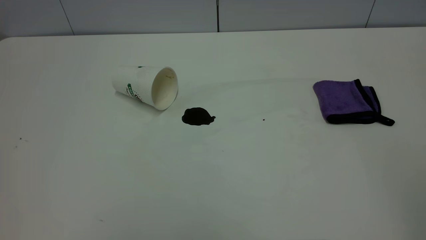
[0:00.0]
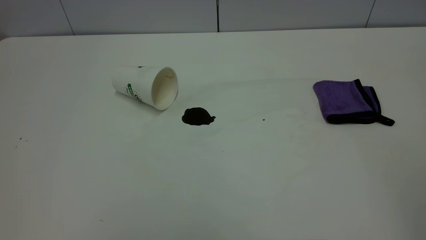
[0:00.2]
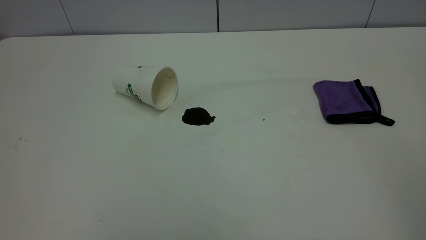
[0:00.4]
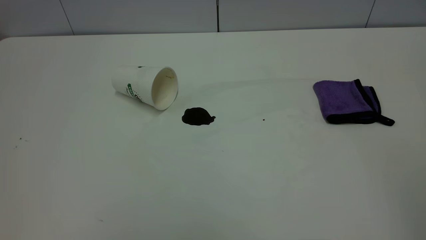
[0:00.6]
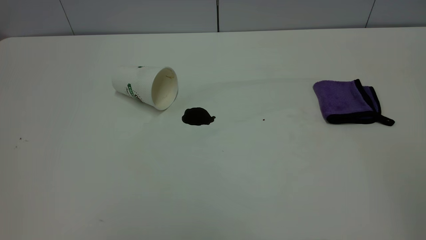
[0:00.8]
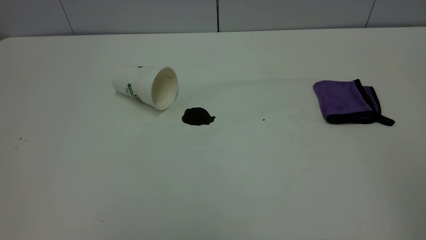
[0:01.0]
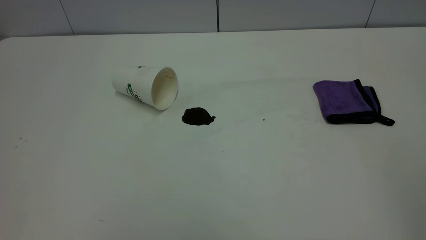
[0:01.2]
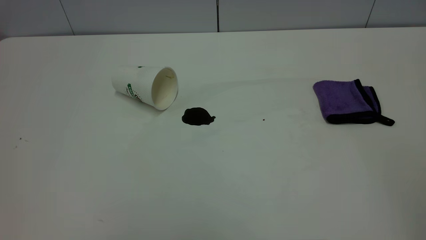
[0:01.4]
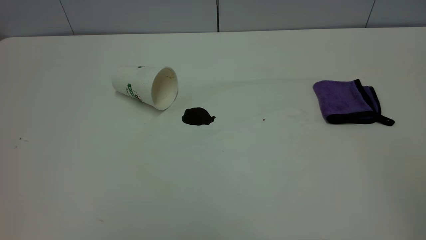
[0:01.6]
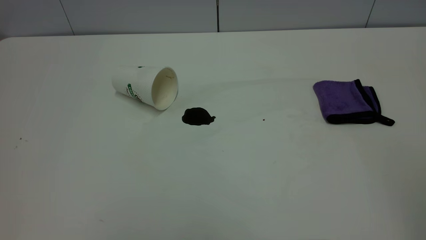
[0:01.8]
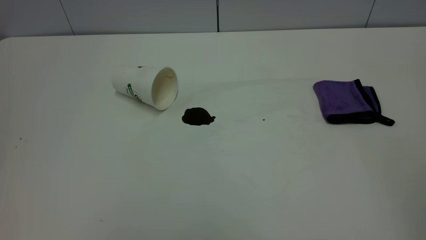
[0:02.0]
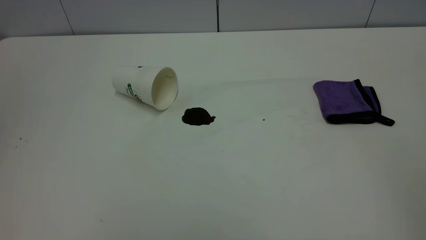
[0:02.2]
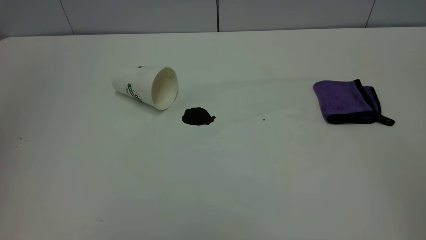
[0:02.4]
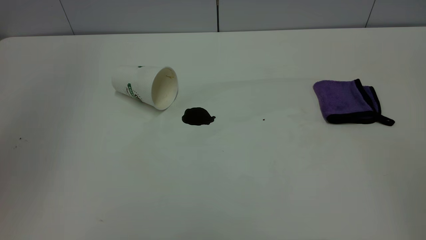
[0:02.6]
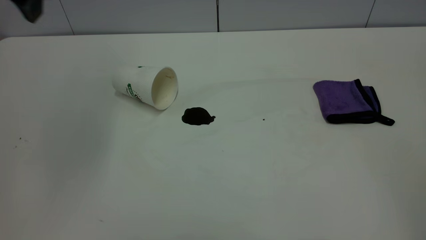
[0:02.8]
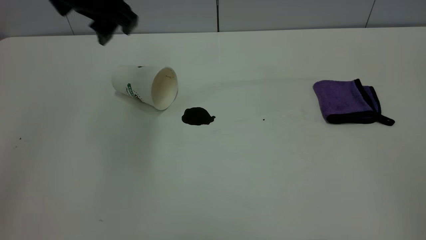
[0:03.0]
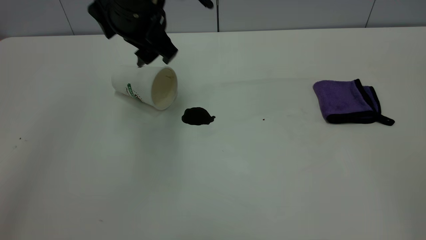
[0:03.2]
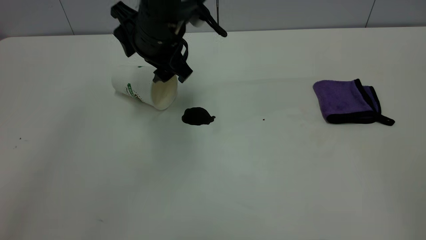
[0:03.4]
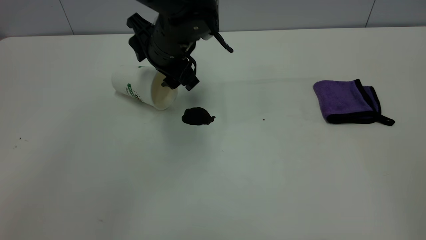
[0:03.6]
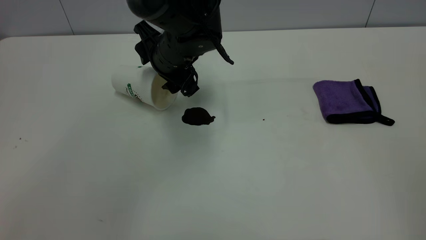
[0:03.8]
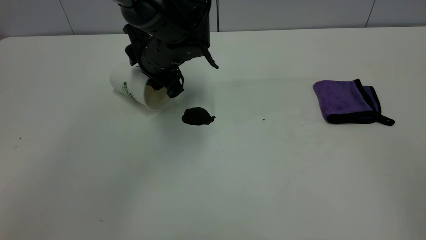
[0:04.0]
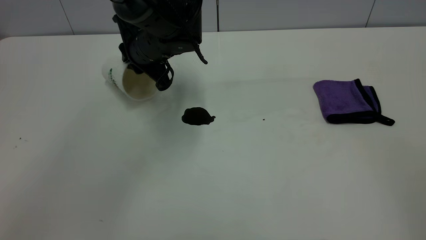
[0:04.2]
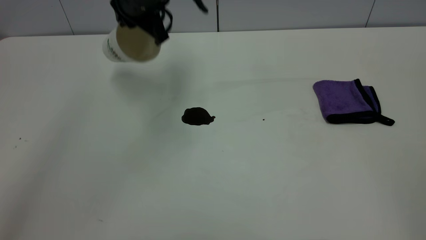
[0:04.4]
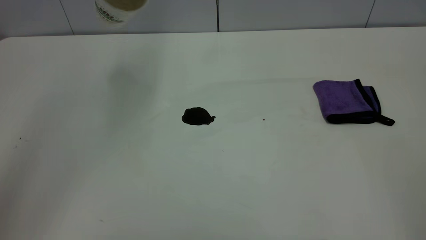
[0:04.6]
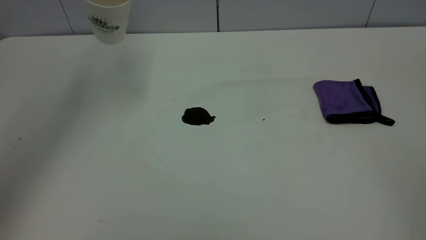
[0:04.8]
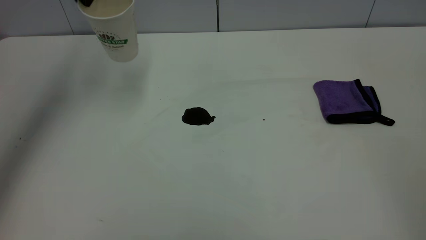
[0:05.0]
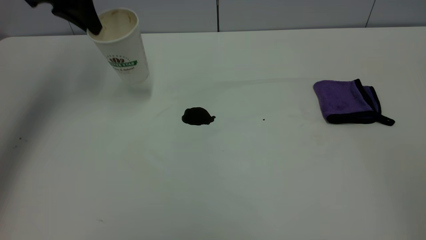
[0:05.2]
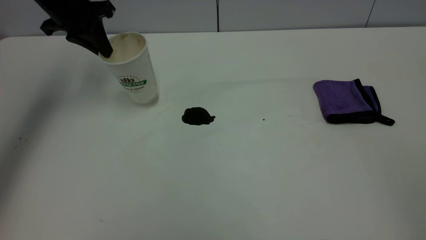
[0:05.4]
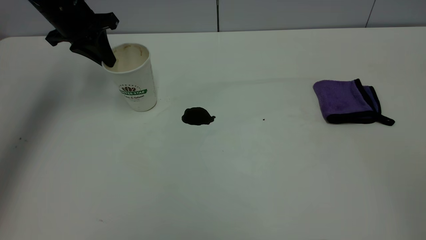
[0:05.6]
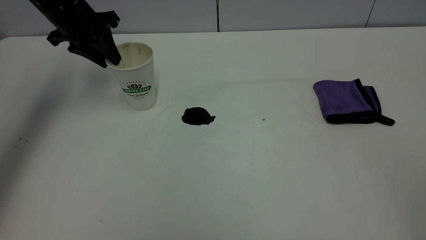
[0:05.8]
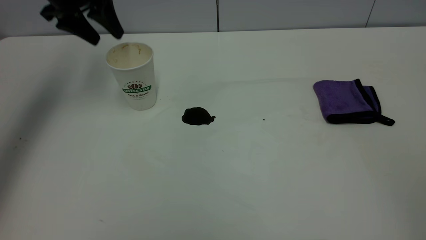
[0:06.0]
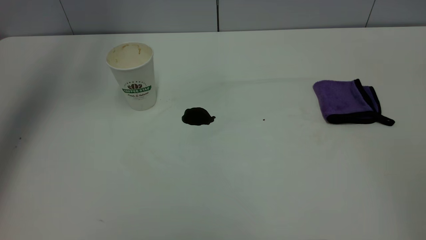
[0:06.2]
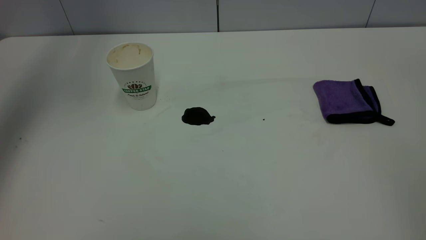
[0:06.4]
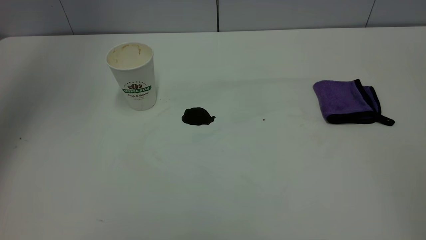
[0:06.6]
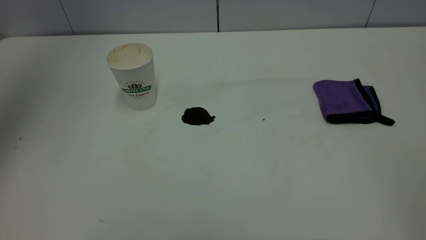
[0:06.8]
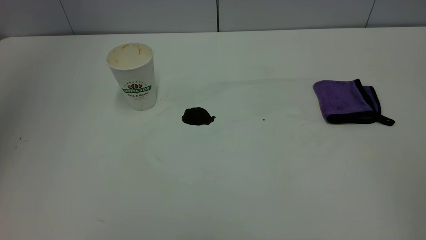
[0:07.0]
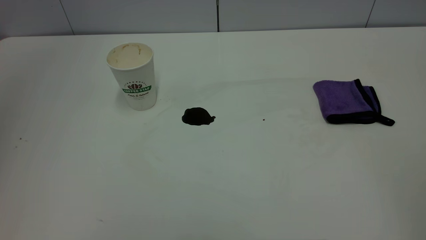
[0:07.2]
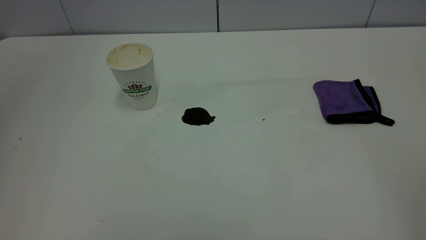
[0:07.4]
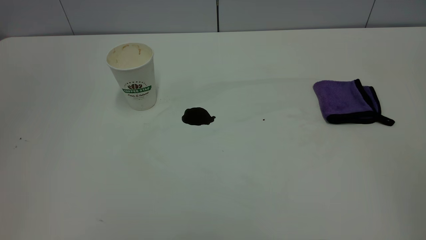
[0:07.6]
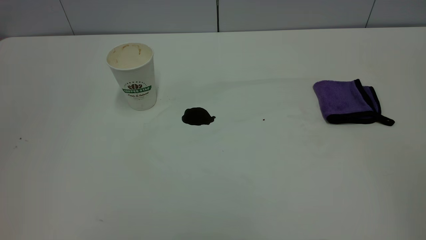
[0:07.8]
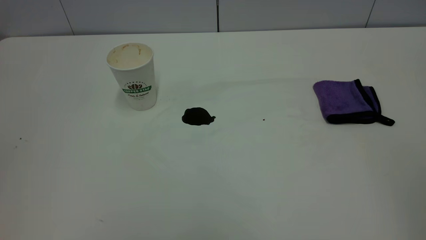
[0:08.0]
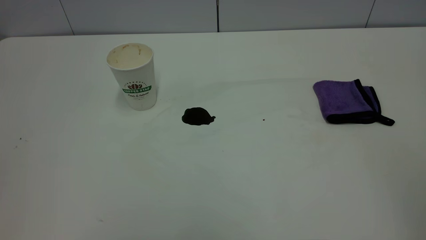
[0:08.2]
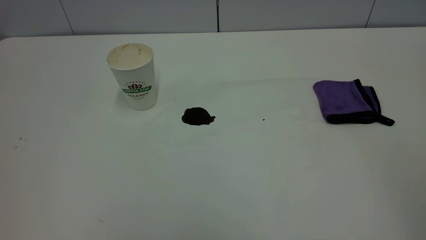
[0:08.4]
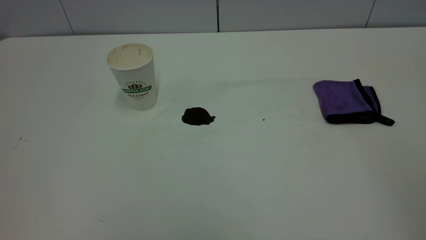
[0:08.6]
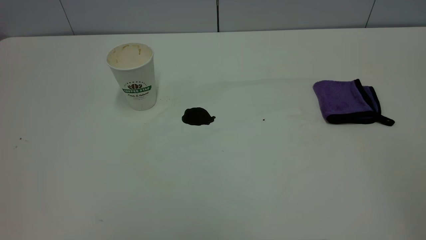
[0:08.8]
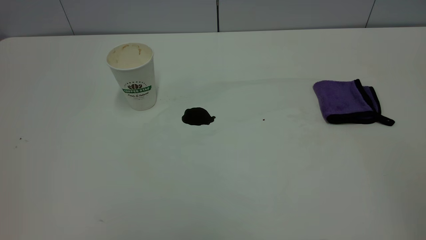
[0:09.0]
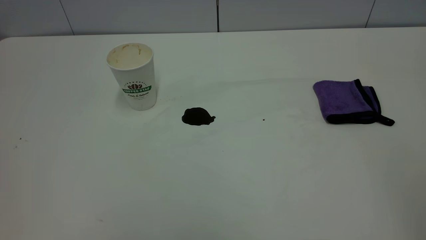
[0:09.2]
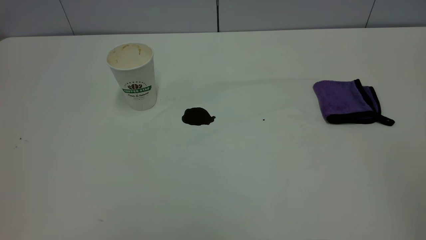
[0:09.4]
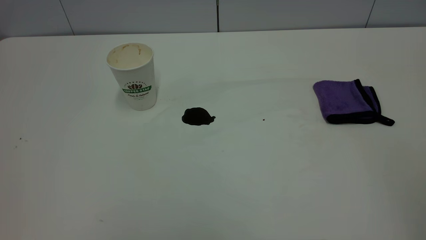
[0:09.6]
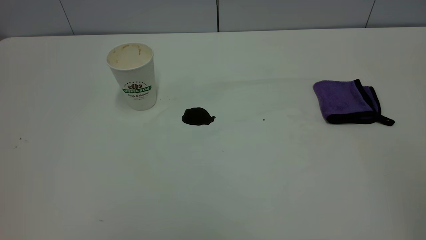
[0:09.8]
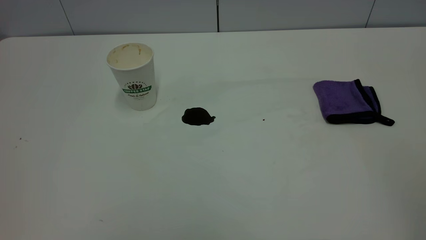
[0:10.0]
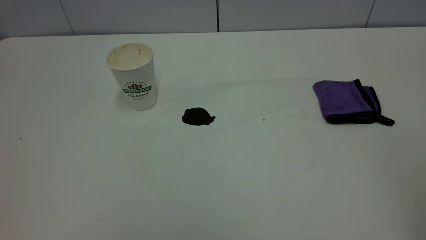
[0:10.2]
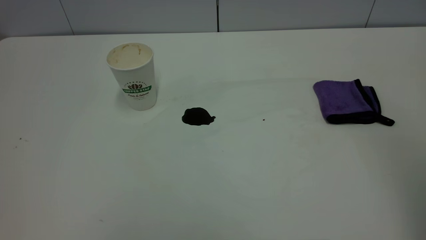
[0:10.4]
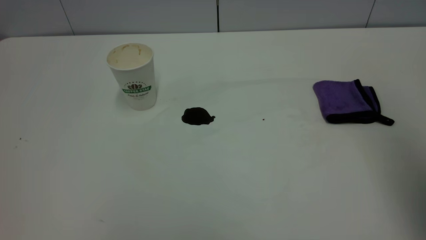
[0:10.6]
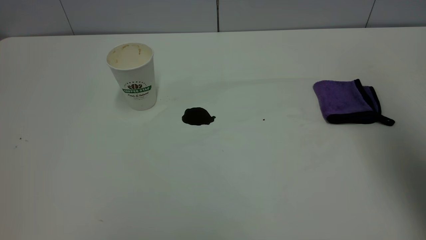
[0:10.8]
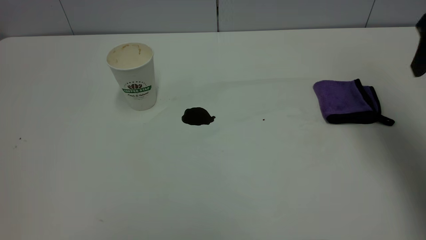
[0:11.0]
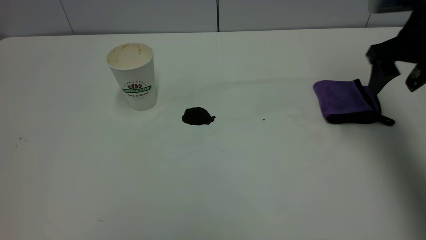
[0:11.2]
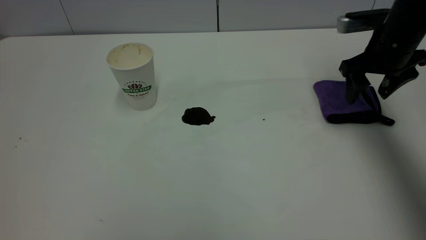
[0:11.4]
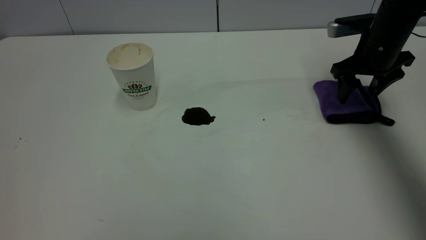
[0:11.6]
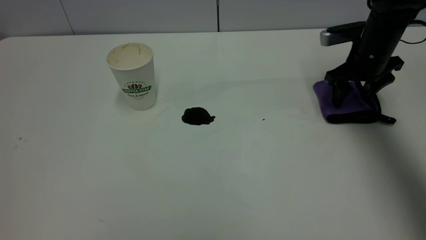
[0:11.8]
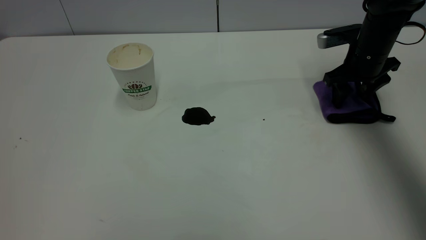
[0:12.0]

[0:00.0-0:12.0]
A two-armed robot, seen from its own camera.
Task of the whole recording: the left gripper pick up the fallen cup and place it upright, the right gripper grasp the purple rag and wipe the coffee stain on the table, the right gripper put the purple rag back in its original position.
Step, 0:00.0 to 0:05.8: Stand the paper cup upright.
0:00.0 to 0:01.6: Neither gripper changes place.
0:01.6 to 0:03.0: The left gripper goes roughly 40 cm forward and to the right, and opens up.
0:03.0 to 0:04.4: The left gripper travels forward by approximately 10 cm, reaches approximately 15 cm downward, then returns, and closes its fingers.
0:04.4 to 0:06.0: The left gripper moves to the left, some 15 cm, and opens its fingers.
0:06.0 to 0:07.6: The left gripper heads backward and upward, covering approximately 40 cm.
0:10.4 to 0:12.0: The right gripper moves forward and downward, some 50 cm.

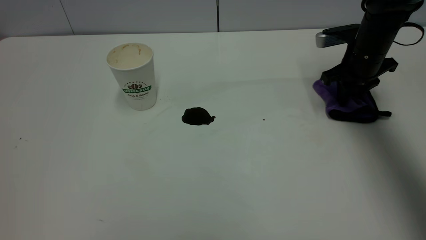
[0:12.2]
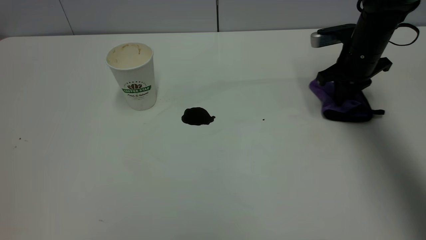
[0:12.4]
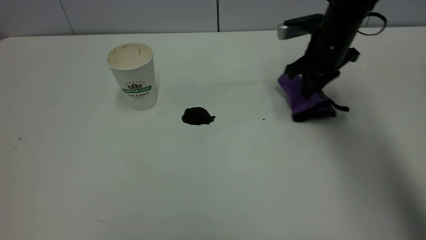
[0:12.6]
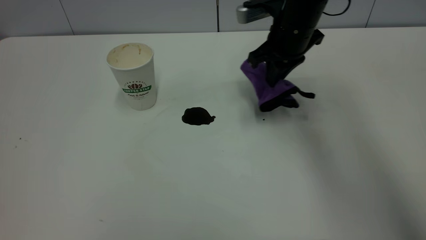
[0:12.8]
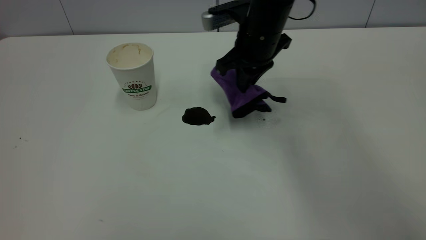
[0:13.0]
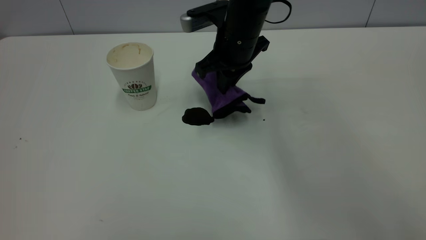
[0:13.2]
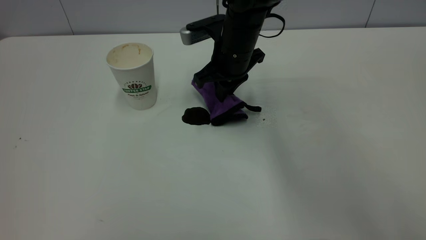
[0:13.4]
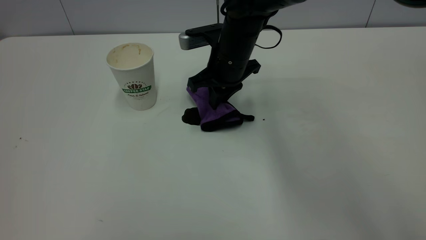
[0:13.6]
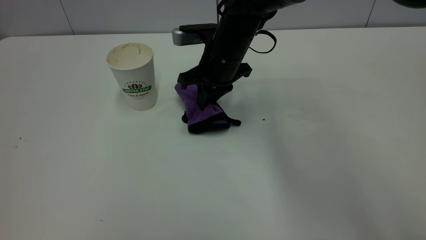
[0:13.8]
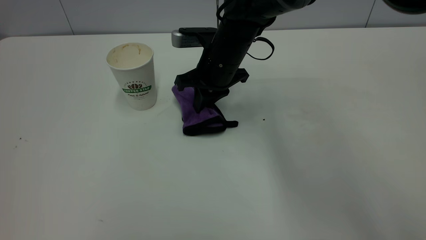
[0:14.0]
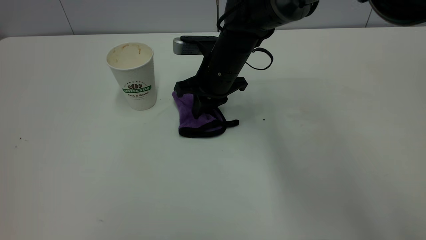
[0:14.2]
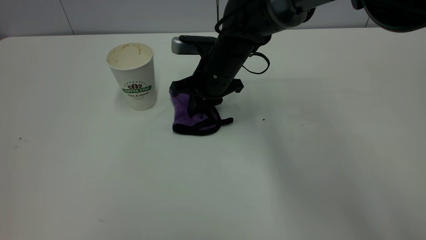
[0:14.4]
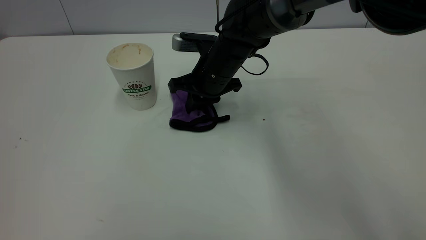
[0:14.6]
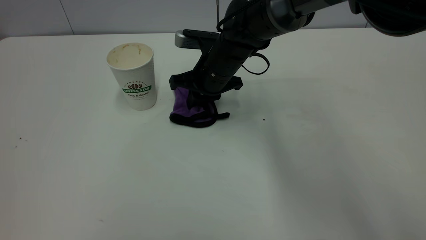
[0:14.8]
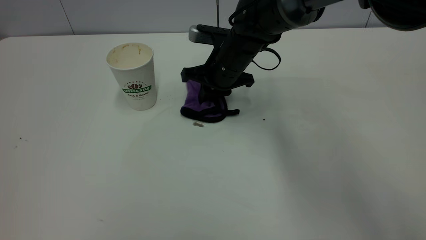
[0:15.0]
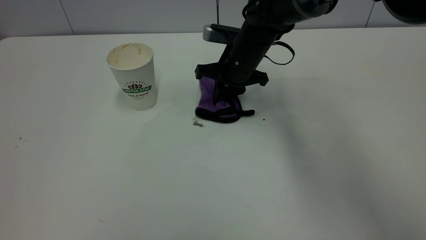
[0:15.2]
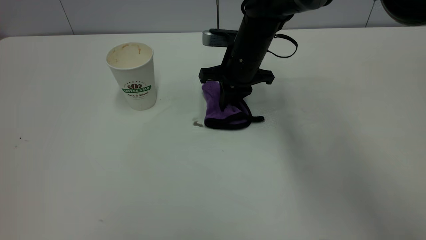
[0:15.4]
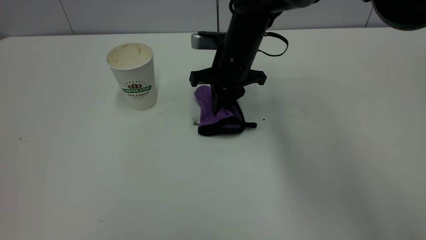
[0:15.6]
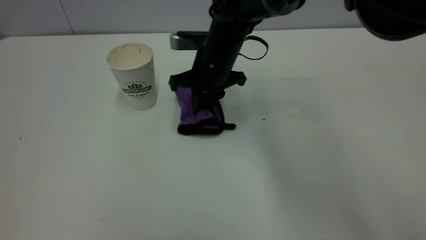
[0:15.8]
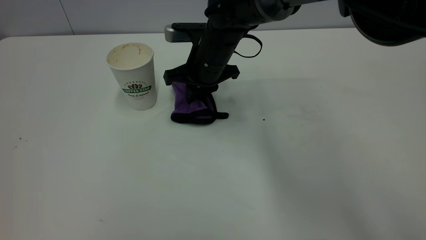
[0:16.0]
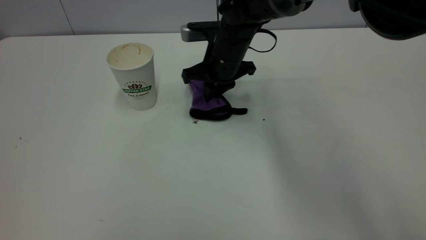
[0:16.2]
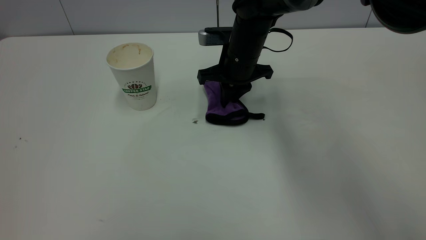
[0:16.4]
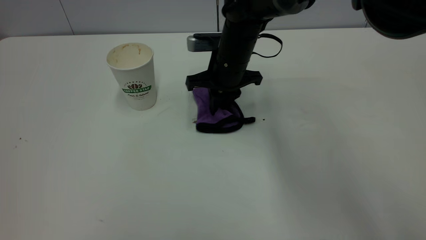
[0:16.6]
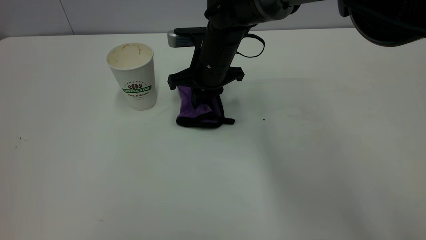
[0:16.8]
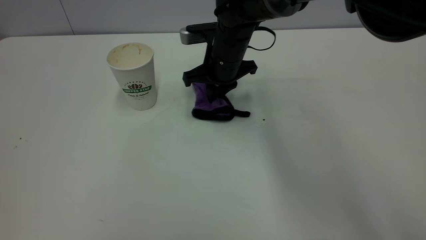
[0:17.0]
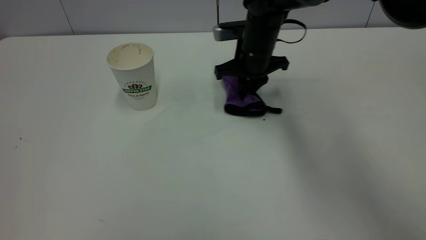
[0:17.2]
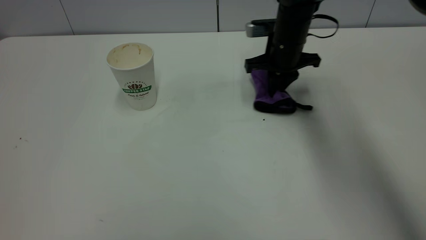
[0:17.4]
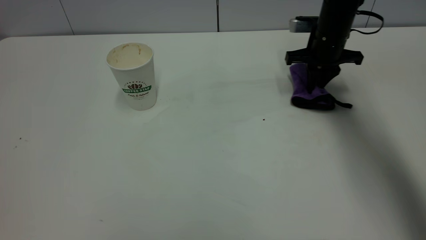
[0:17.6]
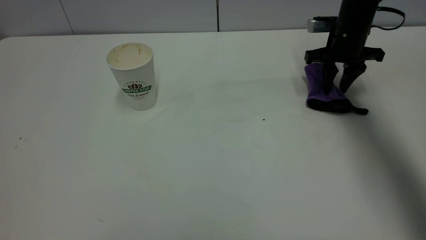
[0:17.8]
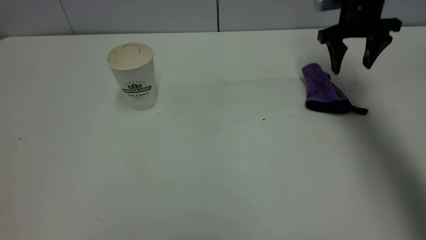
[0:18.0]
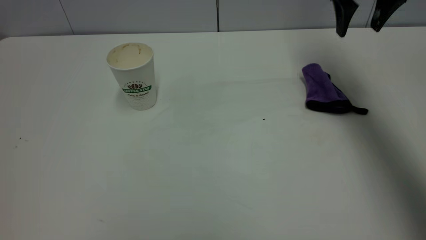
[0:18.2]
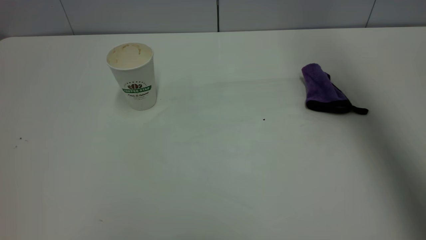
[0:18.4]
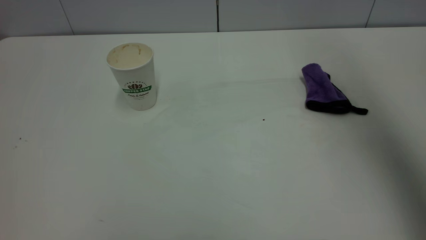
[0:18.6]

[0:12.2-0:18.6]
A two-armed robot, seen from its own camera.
Task of the whole recording: the left gripper pick up the fallen cup and place it upright, the right gripper grasp the purple rag and wipe the coffee stain on the table, the right gripper put the purple rag back in its original position.
Step, 0:12.2 to 0:18.0: Wipe the stains off the table with a rag.
0:12.2 to 0:13.8: The right gripper travels to the left by roughly 25 cm.
0:13.8 to 0:15.4: The grippers stay close to where they were, moving slightly.
0:15.4 to 0:17.0: The right gripper moves left and right over some 5 cm, changing direction 2 times.
0:17.0 to 0:18.6: The right gripper goes roughly 40 cm upward, to the right and backward, and opens up.
